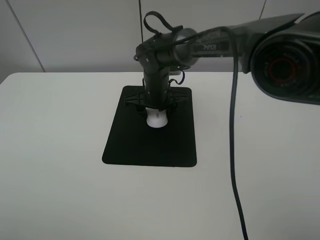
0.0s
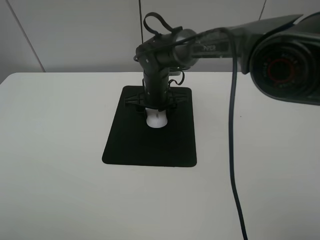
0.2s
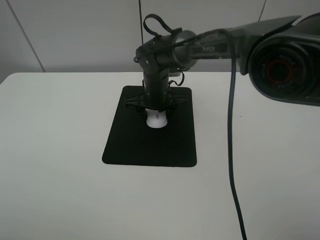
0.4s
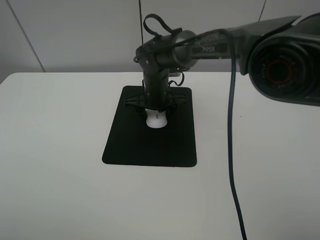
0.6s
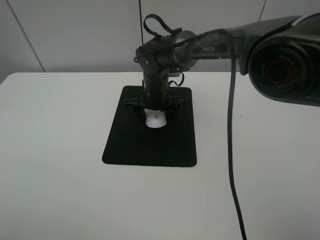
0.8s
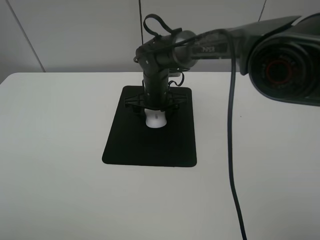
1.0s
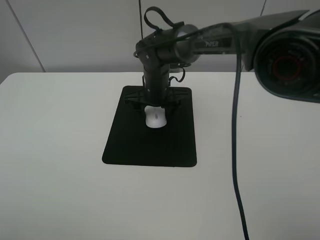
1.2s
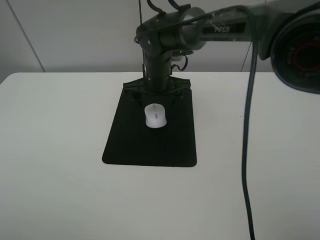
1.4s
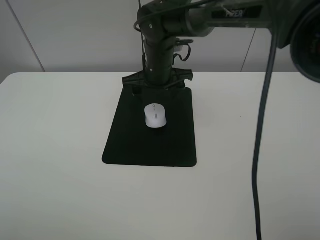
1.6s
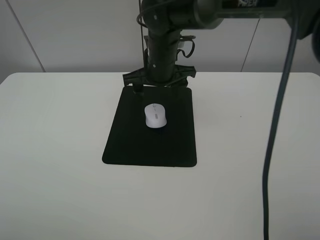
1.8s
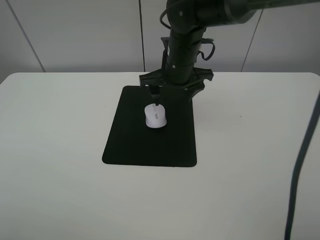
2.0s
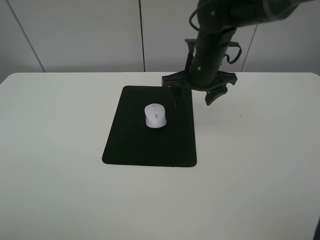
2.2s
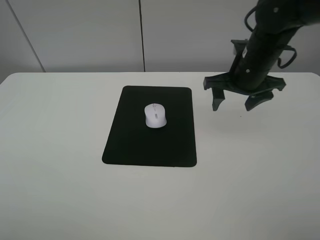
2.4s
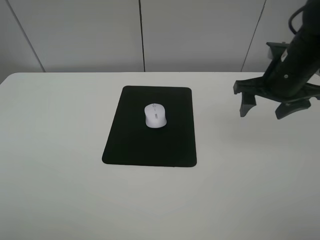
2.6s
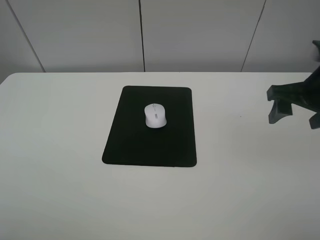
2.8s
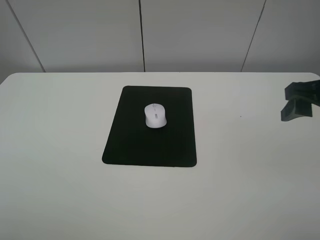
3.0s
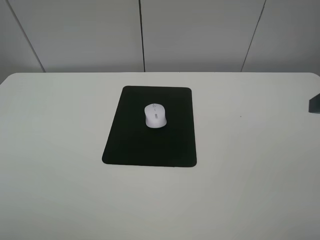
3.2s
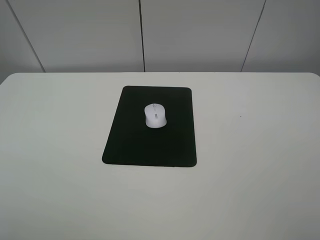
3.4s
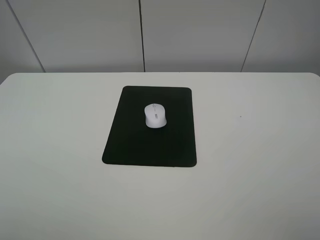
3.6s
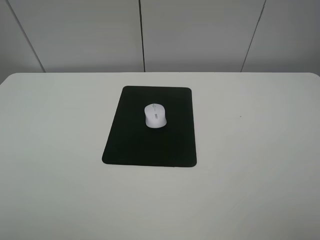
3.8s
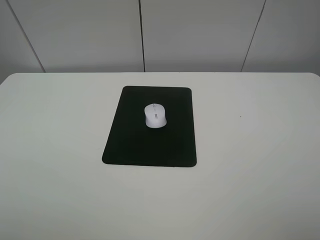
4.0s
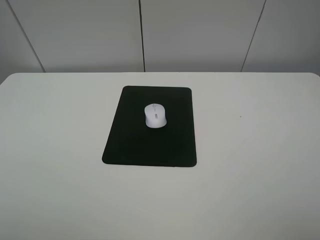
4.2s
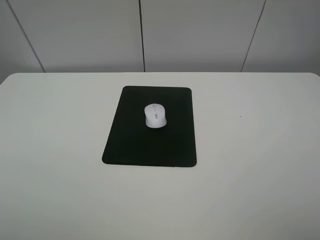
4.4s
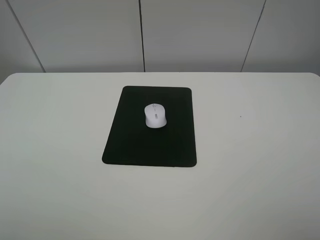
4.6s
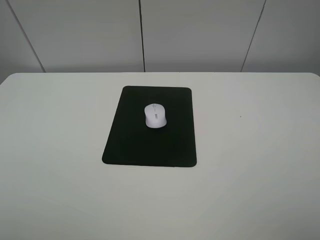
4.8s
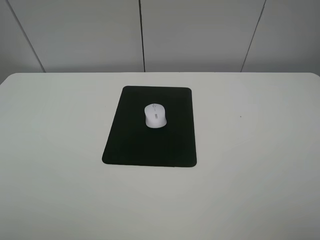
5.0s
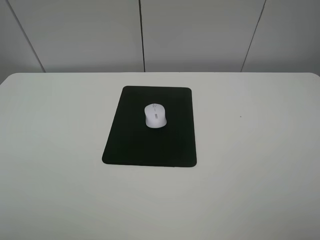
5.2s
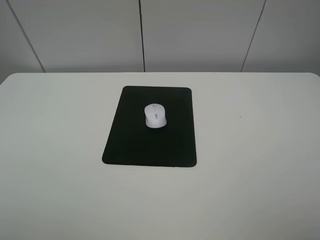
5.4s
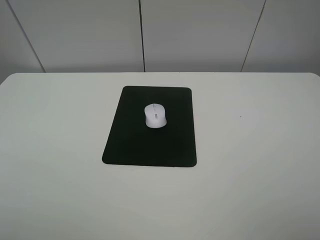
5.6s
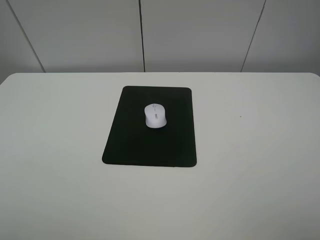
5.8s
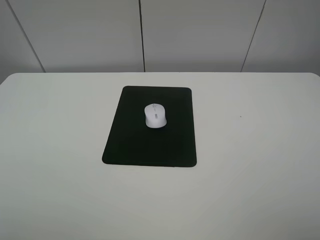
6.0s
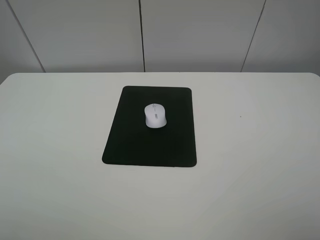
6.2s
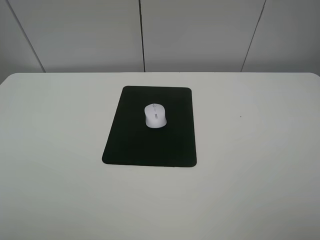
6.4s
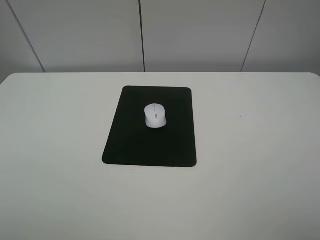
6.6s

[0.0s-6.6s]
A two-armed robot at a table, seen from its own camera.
0.0s to 1.6s: The right gripper goes roughly 5 cm upward, and opens its fingers.
1.6s to 3.2s: The right gripper travels to the right, backward and upward by approximately 40 cm.
